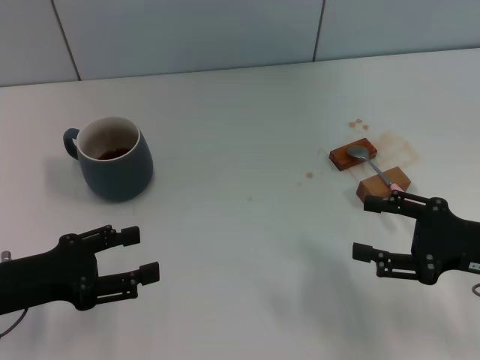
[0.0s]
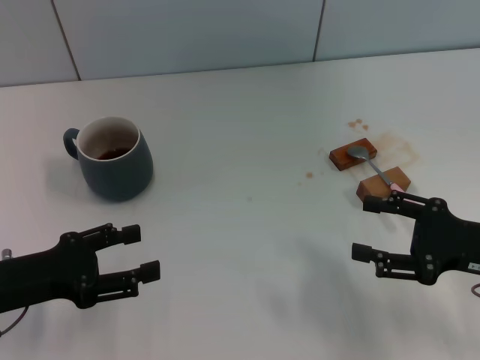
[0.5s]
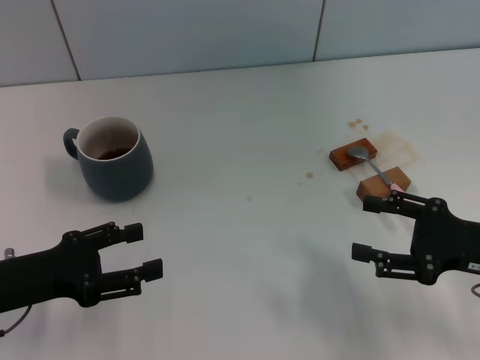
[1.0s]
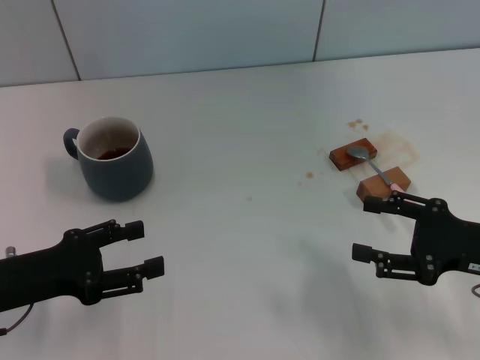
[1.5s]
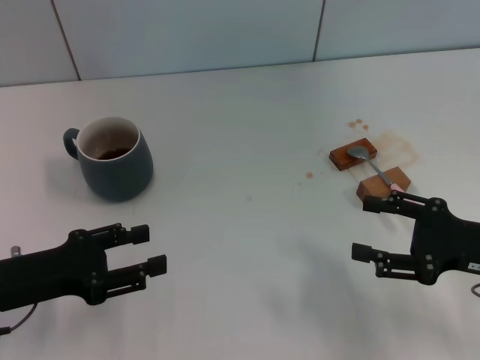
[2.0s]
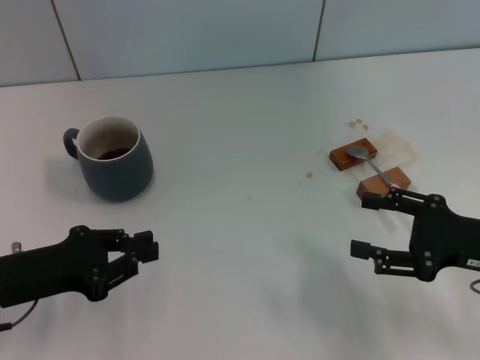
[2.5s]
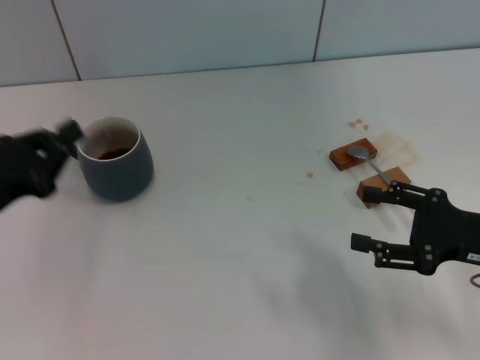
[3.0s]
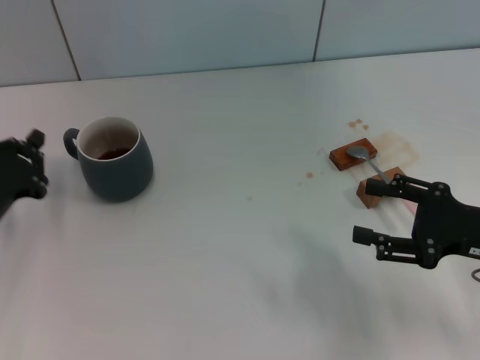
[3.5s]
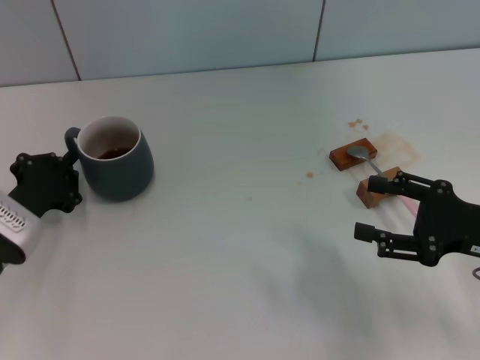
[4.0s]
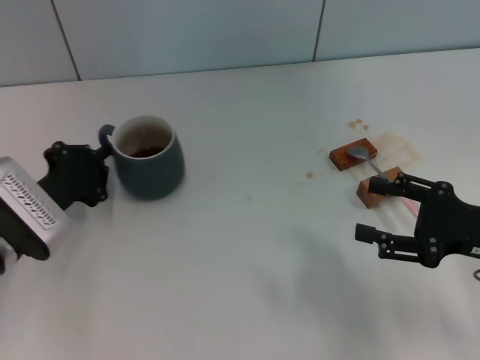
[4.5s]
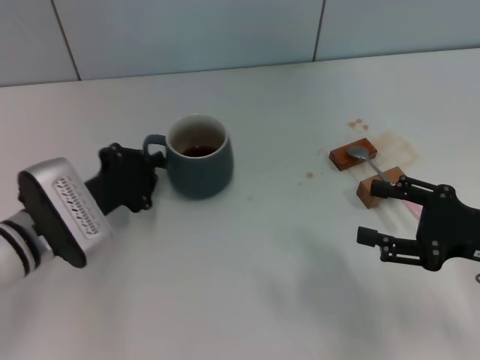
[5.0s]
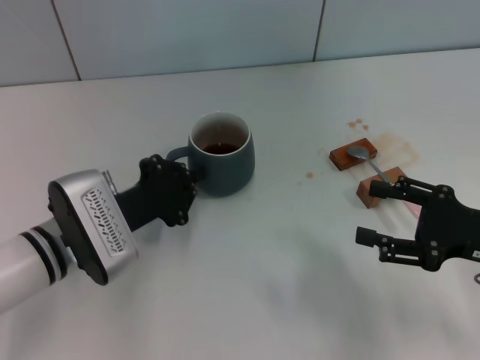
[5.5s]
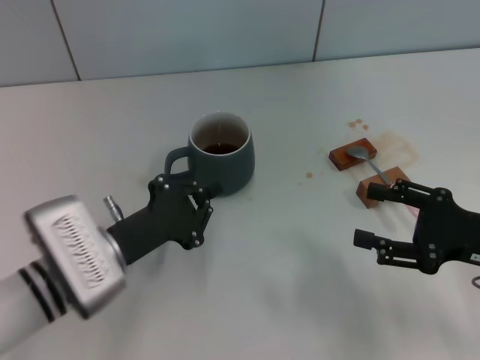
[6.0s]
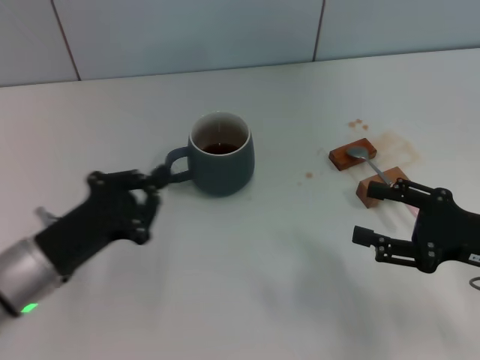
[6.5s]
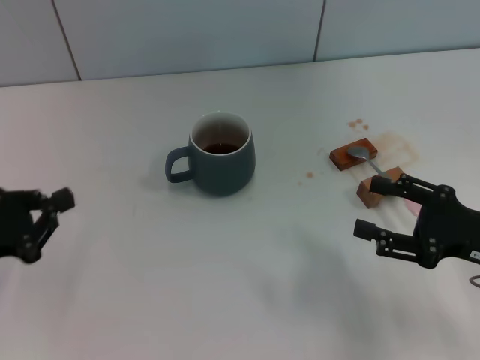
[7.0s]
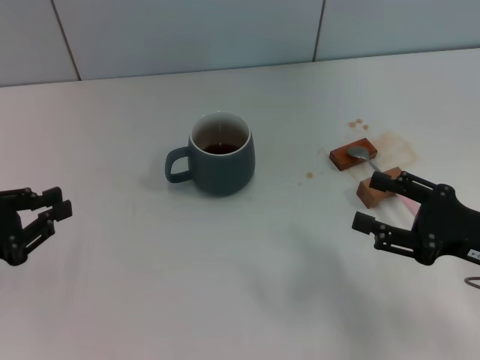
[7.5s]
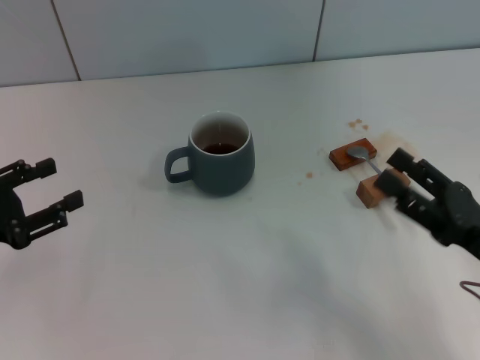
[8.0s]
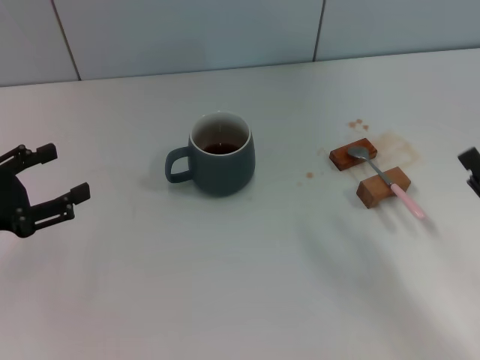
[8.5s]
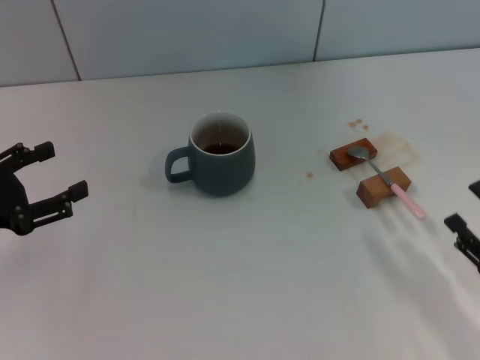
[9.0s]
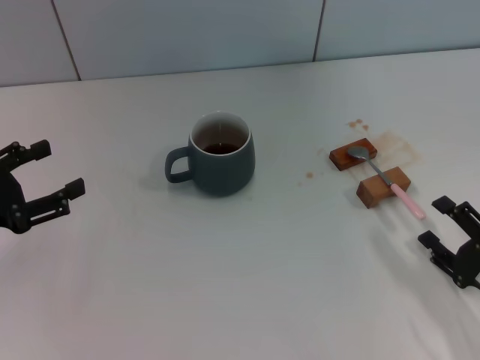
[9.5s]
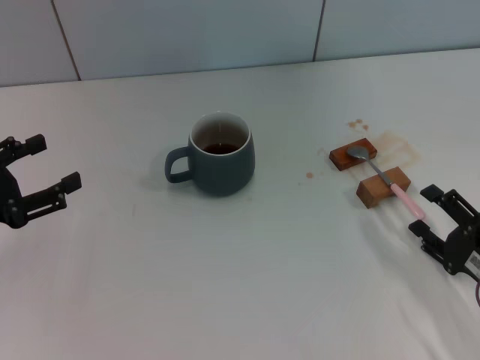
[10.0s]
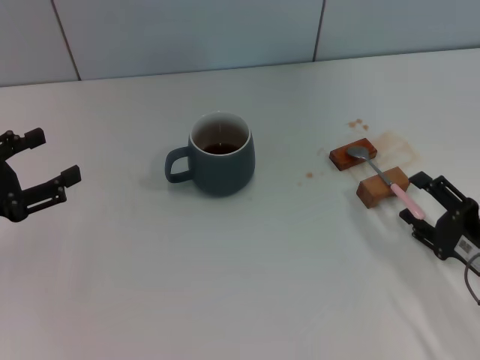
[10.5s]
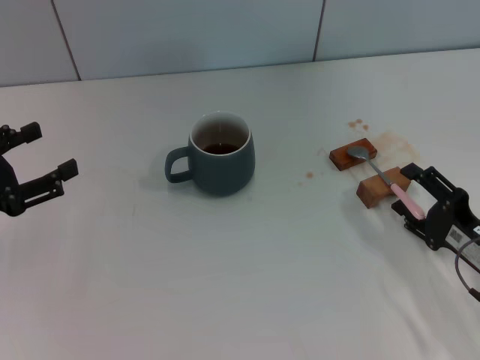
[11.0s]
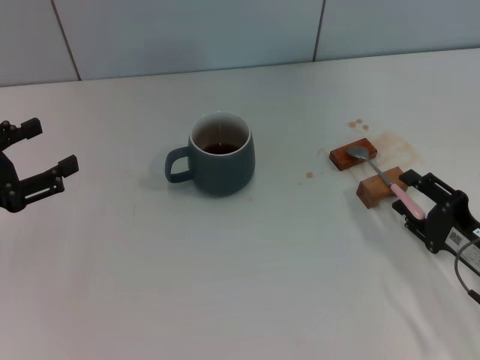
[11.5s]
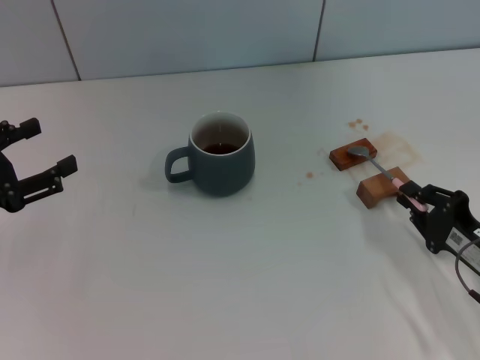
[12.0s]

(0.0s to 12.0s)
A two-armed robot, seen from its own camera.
Task of the whole recording: Move the grey cup to the center, lift the pink spoon, stir it three times in the cup, and put the spoon into the cup.
Step, 0.0s - 6.0s: Move the cup with coffee to the center of view with the left gripper.
0.0s - 2.0s: Neither gripper changes place.
2.0s - 4.0s: The left gripper heads forward, covering some 5 cm, and closes.
4.0s - 6.0s: The left gripper moves to the right, roughly 10 cm.
6.0s - 8.0s: The left gripper moves to the left, about 15 cm, and opens its fingers.
8.0s - 10.0s: The right gripper shifts approximately 5 cm downward; the left gripper opens its fingers.
10.0s - 12.0s: The right gripper closes.

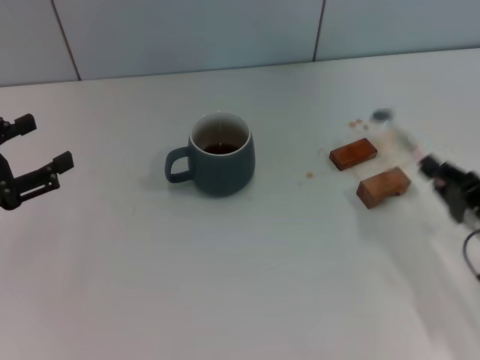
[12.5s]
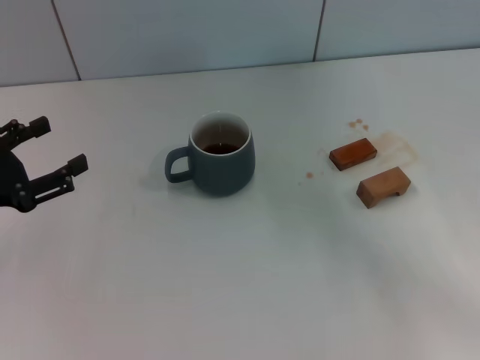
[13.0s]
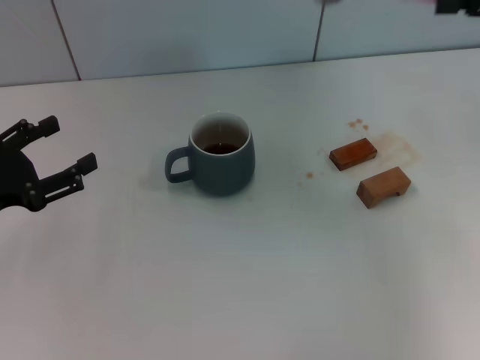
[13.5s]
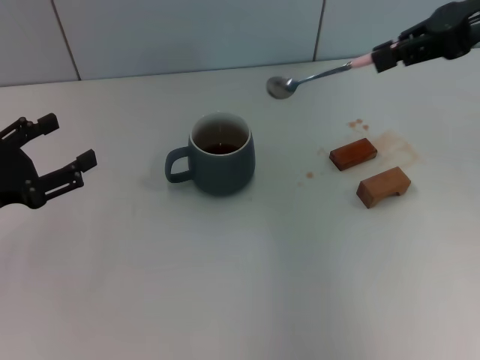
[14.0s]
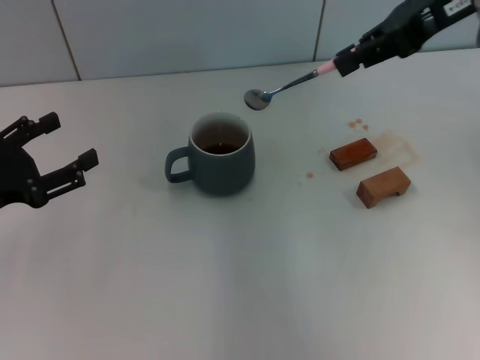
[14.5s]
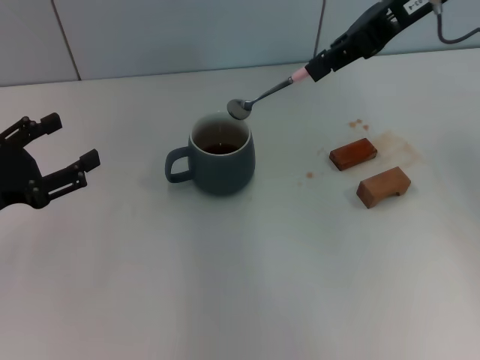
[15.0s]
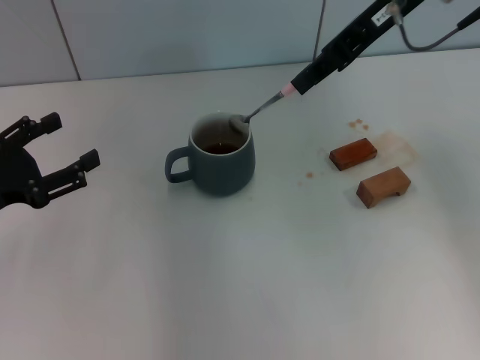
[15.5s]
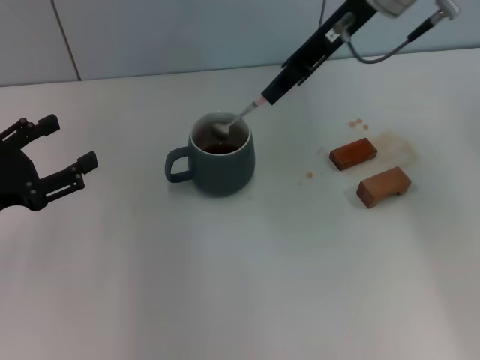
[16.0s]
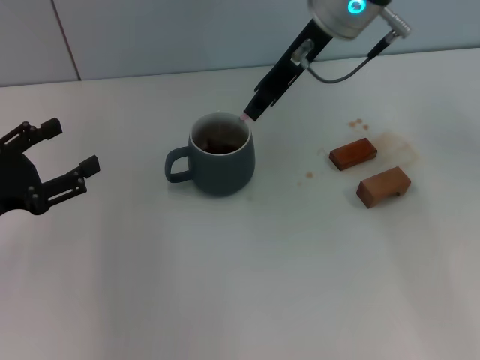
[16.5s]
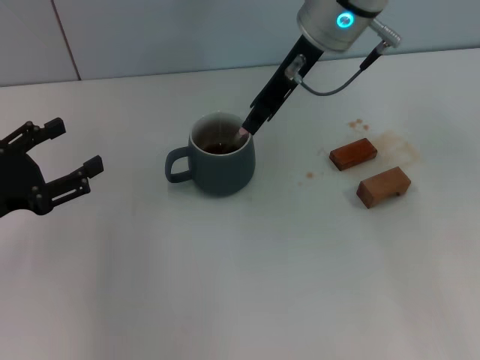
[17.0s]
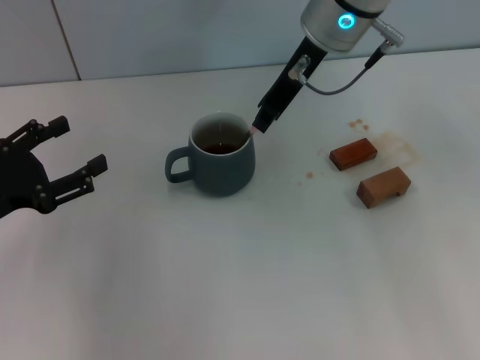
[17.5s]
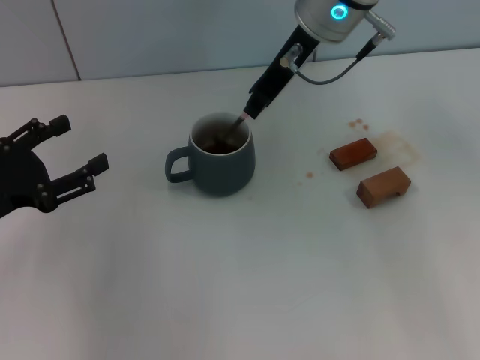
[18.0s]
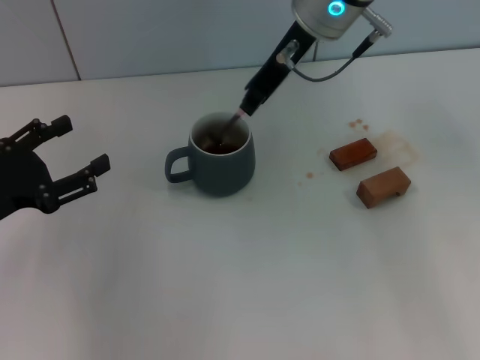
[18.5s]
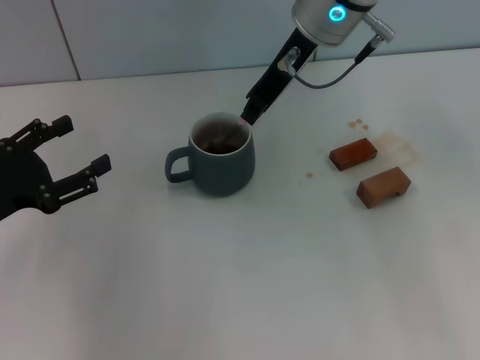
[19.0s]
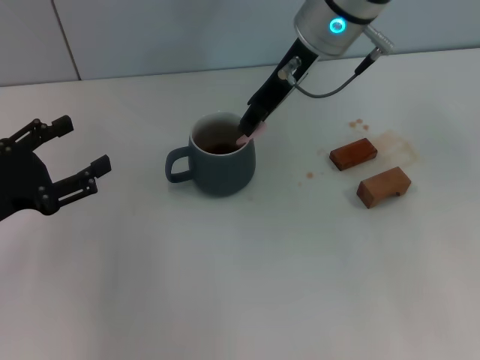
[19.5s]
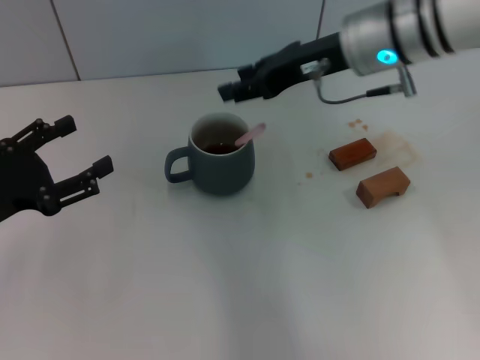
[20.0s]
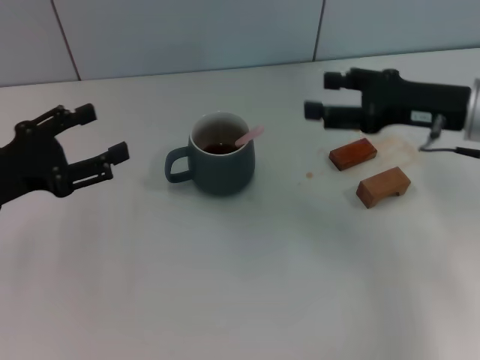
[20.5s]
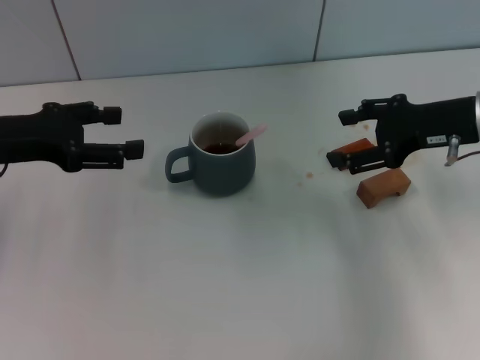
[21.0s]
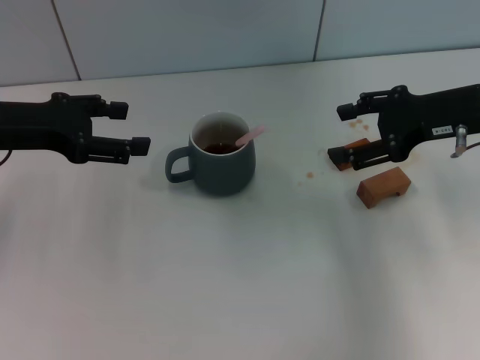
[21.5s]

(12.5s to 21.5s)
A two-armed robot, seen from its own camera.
Task of the whole recording: Move the grey cup to the center, lift the pink spoon, stir it three times in the cup, and put the spoon into the cup.
Step, 13.0s - 19.5s: Stir the coffee in the cup with the right gripper.
12.5s - 14.5s: The right gripper shifts approximately 35 cm upward and forward.
14.5s - 17.0s: The right gripper travels to the left by approximately 15 cm.
17.0s - 19.5s: The grippers make only small movements.
19.5s - 21.5s: The left gripper moves forward and upward, approximately 10 cm; the right gripper moves to the right, approximately 20 cm, and opens its fingers.

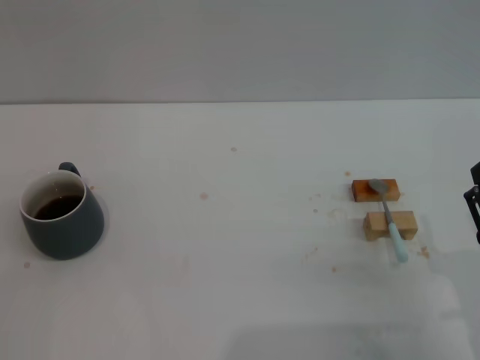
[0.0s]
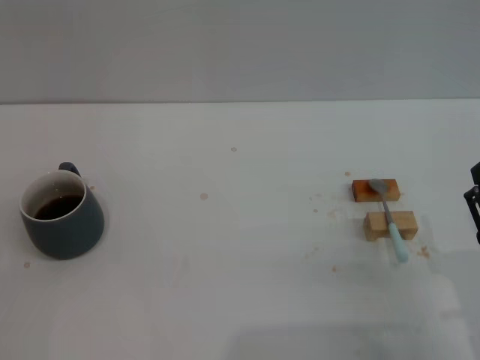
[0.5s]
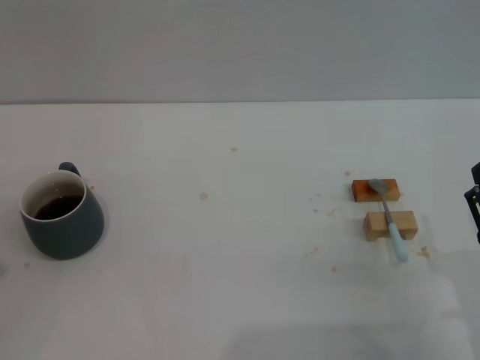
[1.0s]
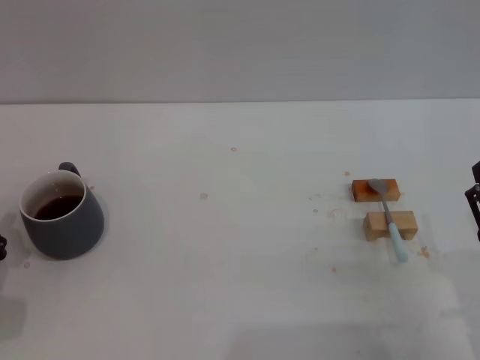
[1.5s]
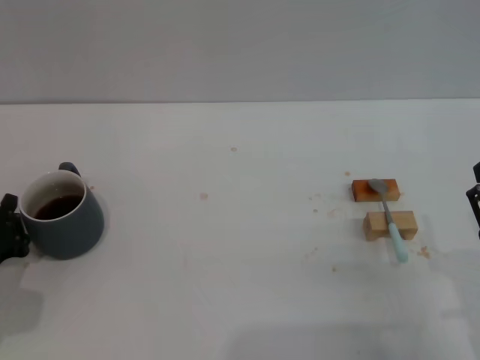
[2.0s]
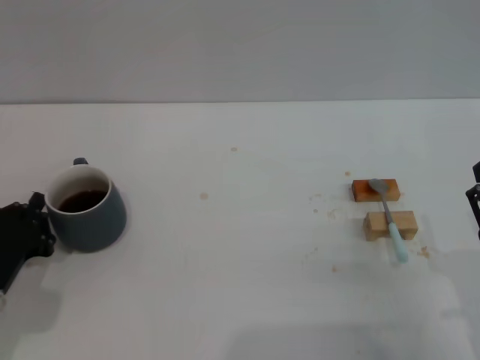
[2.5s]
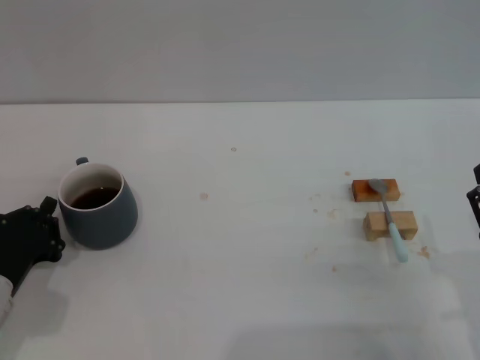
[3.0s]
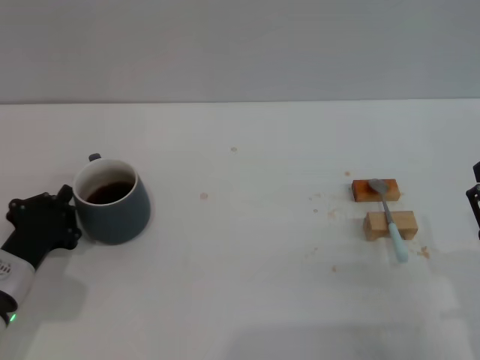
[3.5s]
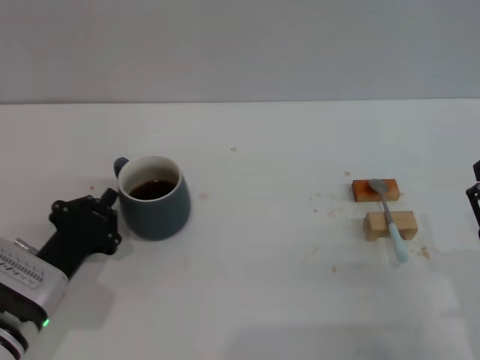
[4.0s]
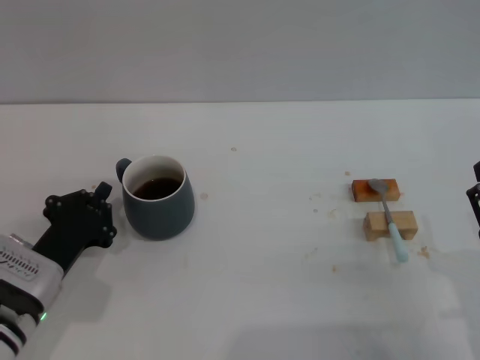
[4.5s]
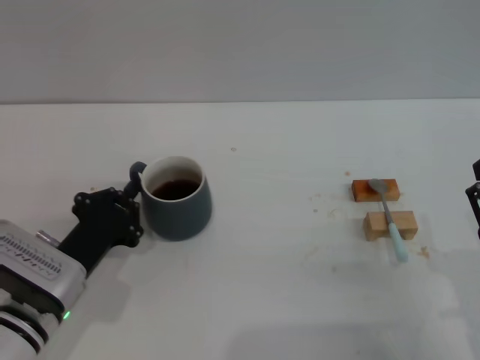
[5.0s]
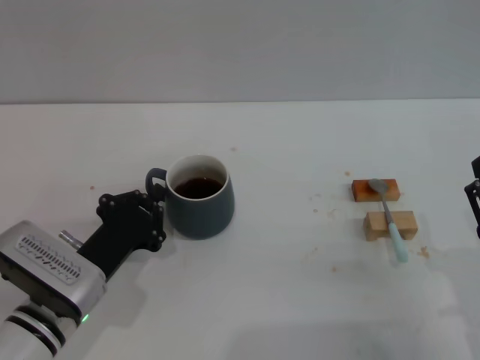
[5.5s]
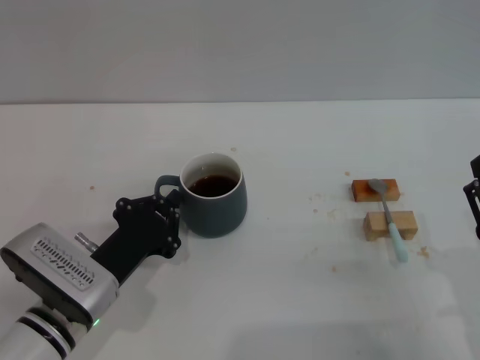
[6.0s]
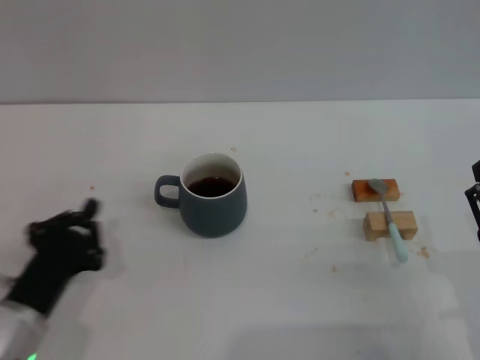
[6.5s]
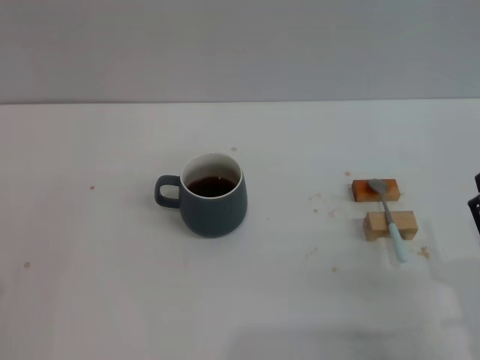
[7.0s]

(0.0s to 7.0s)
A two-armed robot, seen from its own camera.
Task of the whole recording: Move the grey cup to the center, lift the blue spoon, stir it three times in the cup, and put the spoon into the cup.
Step, 0.0s - 6.0s: Move the cup with coffee to the center of view with the left gripper.
0.0s - 2.0s: The left gripper shifts some 10 cm forward.
2.0s - 3.5s: There are only small adjustments of the grippers.
3.5s - 5.0s: The left gripper moves to the right, approximately 5 cm.
5.0s - 7.0s: The left gripper shifts roughly 15 cm backward and to the left.
